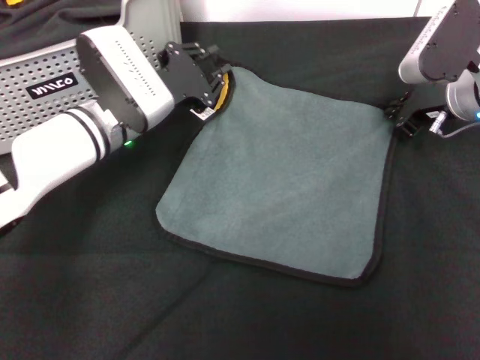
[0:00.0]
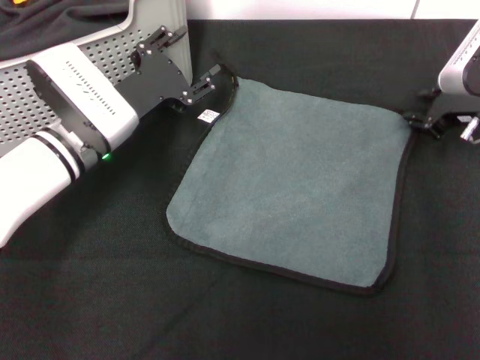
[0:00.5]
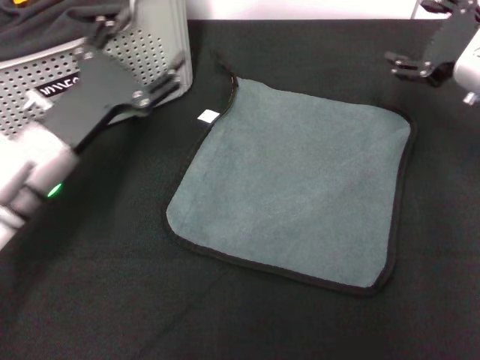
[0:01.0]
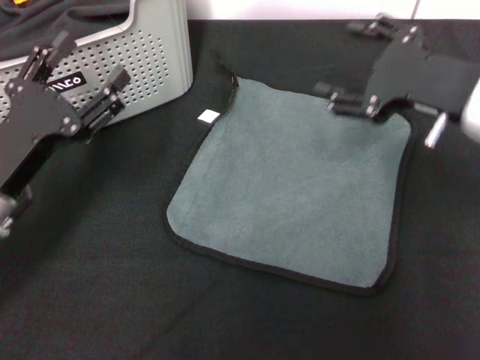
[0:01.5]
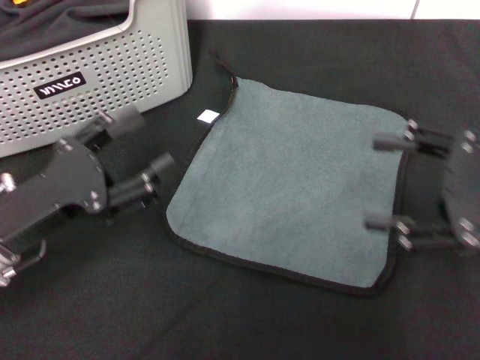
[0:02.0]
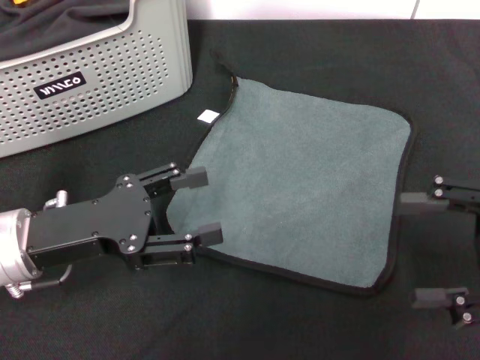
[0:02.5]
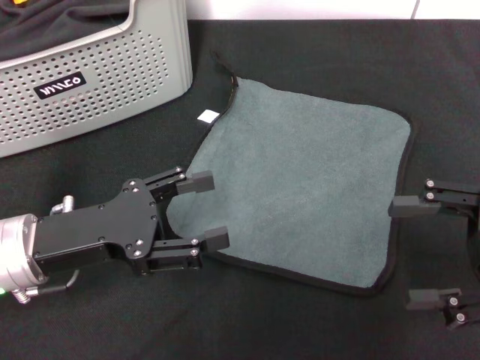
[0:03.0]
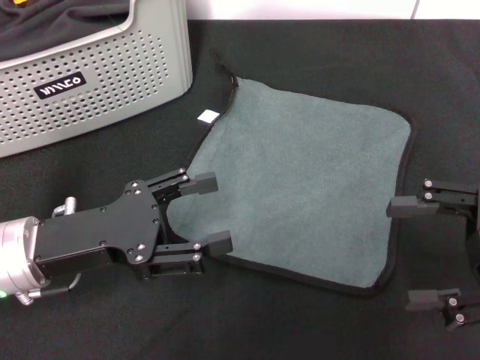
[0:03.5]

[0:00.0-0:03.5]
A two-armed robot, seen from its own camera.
Task of the whole recording: pick up the towel from the storage box and lay it flat on the black tablecloth.
0:00.0 to 0:02.0: The right gripper moves backward, about 20 cm, and opens its fingers. Meanwhile the left gripper shifts approximately 20 cm backward and to the left, and opens.
